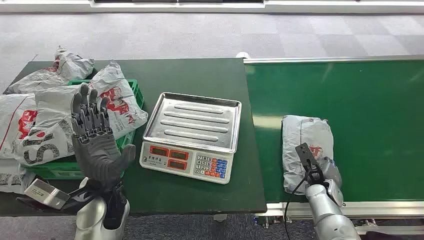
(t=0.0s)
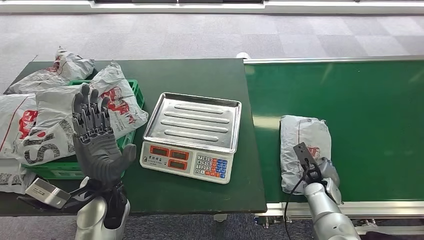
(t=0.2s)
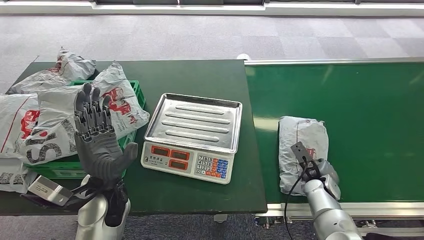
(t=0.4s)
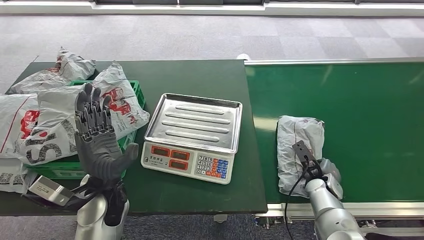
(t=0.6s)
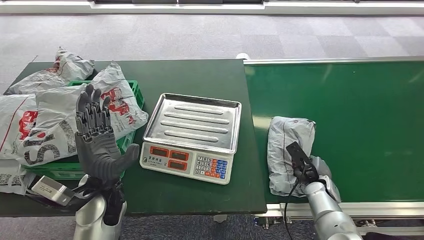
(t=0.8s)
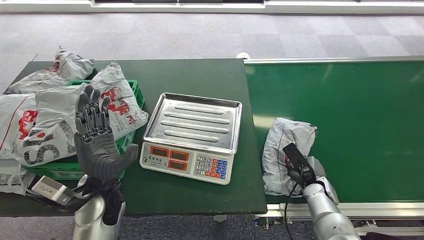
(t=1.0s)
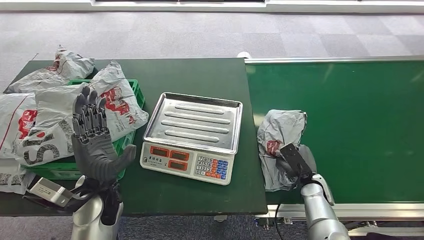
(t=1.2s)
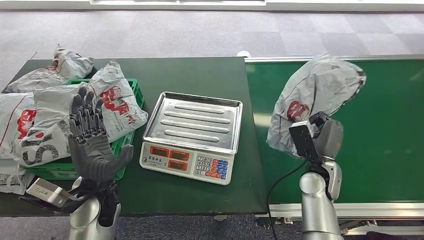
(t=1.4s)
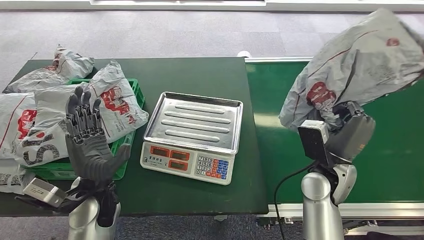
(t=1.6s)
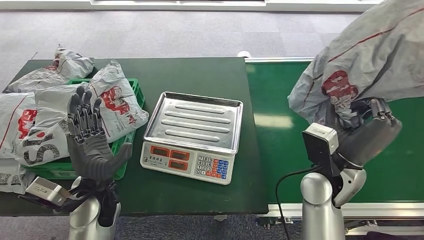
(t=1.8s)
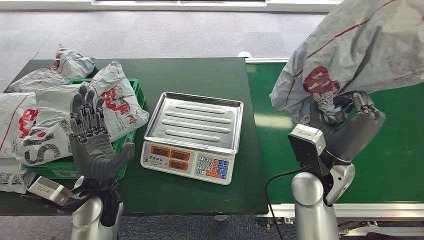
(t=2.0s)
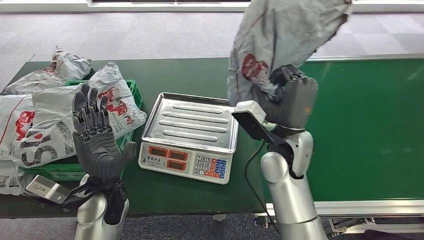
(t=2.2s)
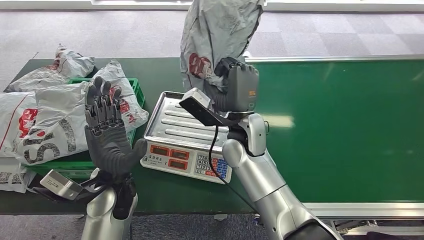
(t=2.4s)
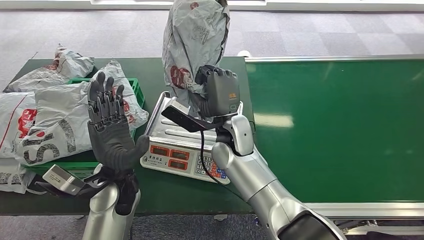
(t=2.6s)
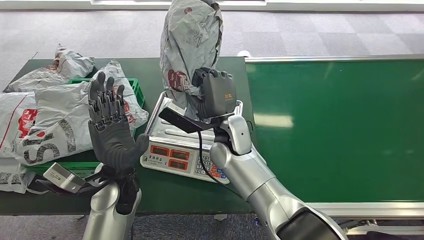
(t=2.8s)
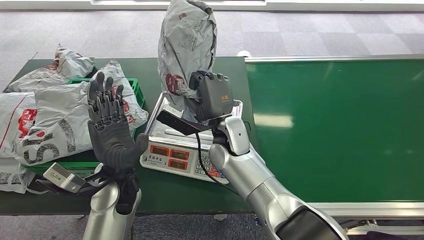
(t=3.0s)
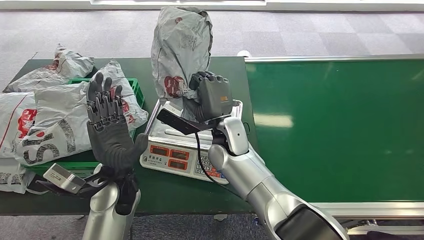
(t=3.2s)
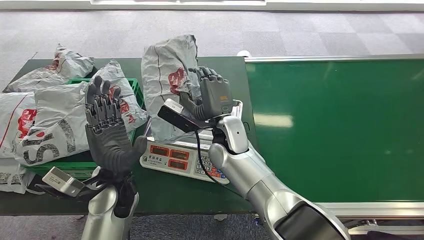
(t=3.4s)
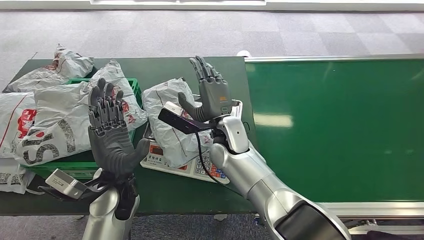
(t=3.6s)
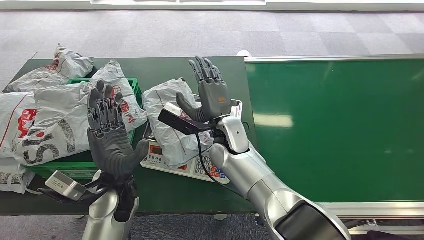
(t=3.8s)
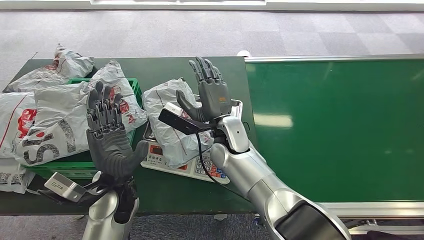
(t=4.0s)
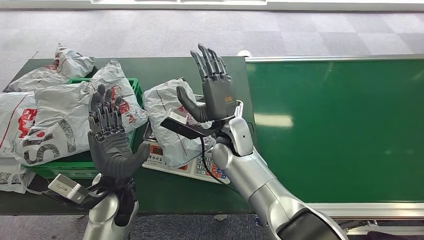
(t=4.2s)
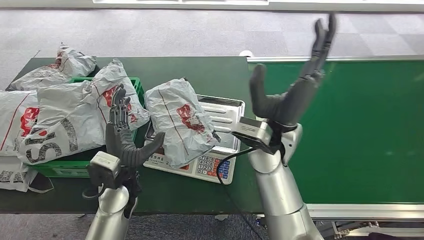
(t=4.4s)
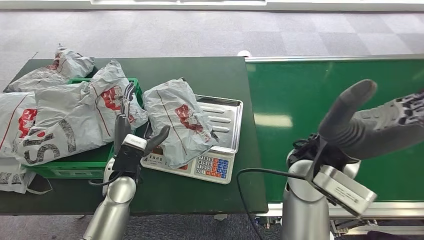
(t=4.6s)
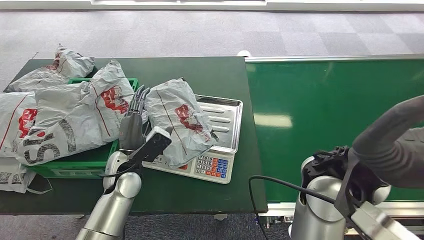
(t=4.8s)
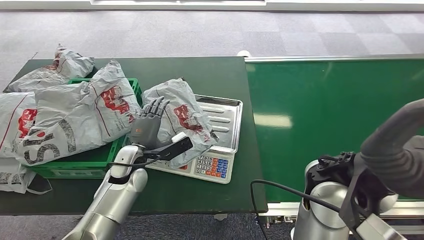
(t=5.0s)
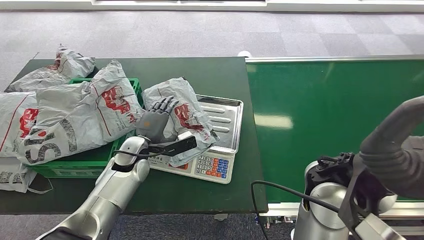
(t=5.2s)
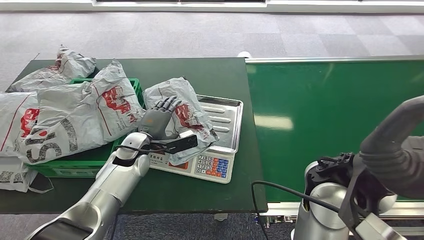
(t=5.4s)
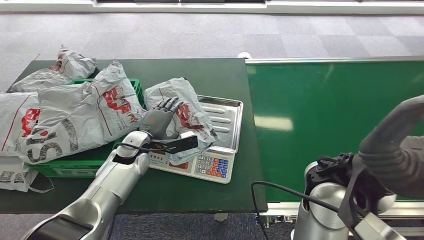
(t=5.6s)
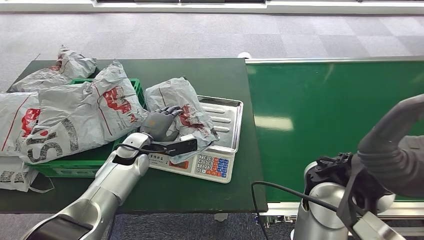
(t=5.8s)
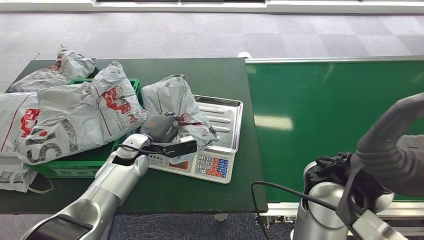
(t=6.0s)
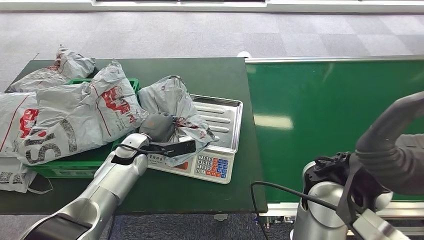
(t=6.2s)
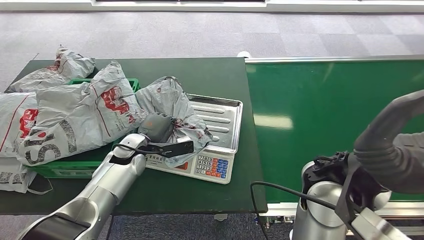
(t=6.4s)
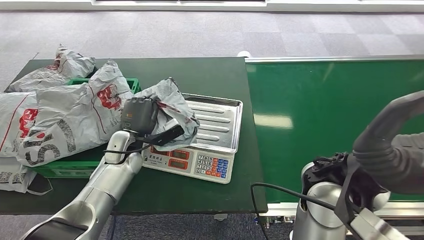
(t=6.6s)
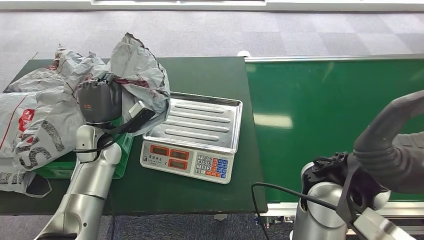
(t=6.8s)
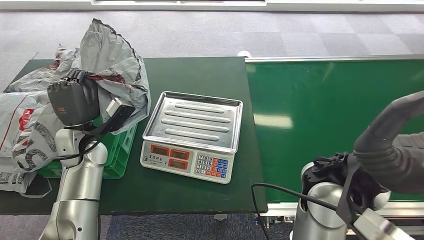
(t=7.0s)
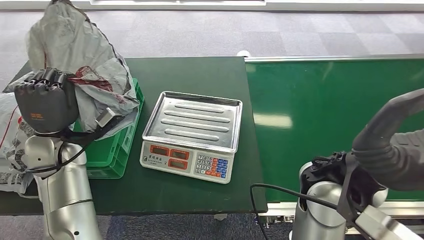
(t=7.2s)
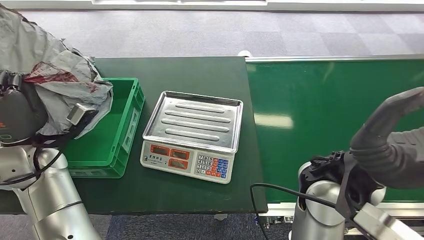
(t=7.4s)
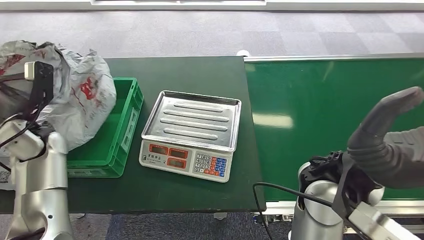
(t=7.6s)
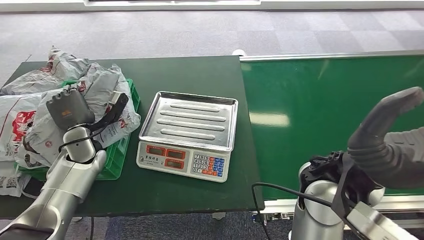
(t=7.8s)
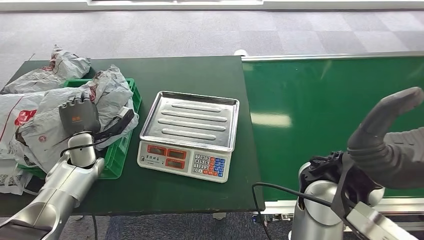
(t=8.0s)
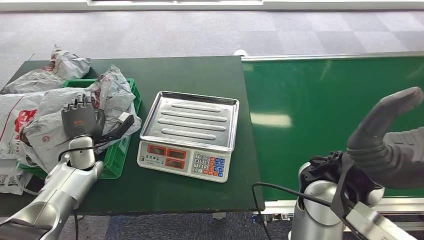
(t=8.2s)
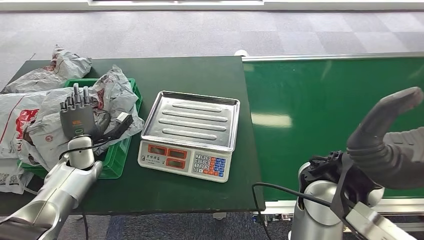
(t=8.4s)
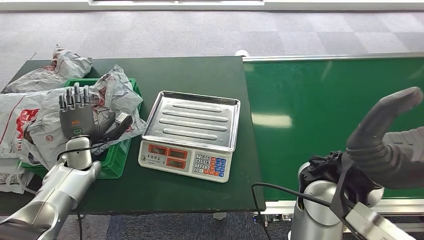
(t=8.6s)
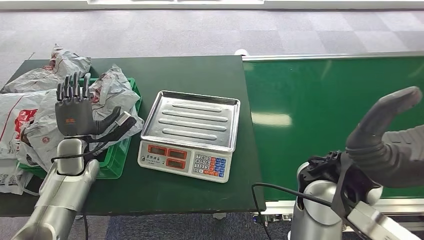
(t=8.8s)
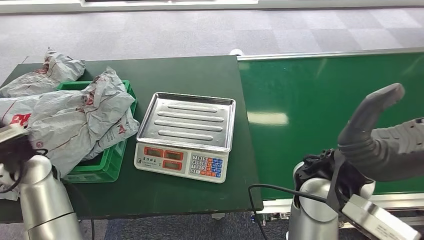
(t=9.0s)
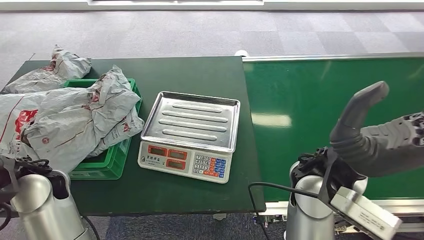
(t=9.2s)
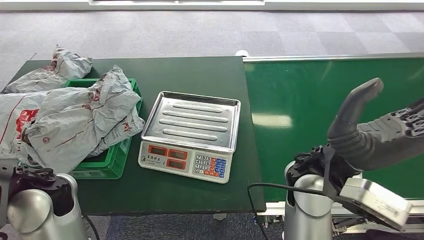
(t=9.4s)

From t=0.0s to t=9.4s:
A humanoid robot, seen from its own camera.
Step, from t=0.0s to t=1.4s: Pick up the package from the conveyor belt.
Step, from t=1.6s to t=5.2s: Place the package onto the inbound machine.
Step, from t=5.6s to t=7.2s: Pick up the package from the inbound machine.
Step, from t=7.4s to t=9.4s: Place the package into the parcel locker.
From t=4.8s to t=6.2s: The left hand heads forward, covering roughly 5 cm.
